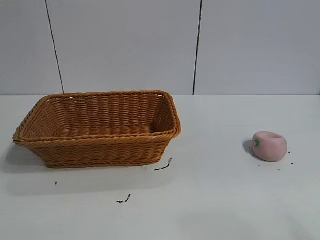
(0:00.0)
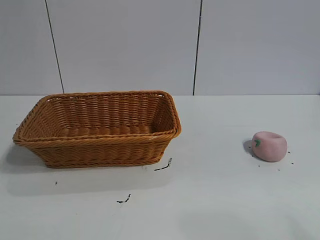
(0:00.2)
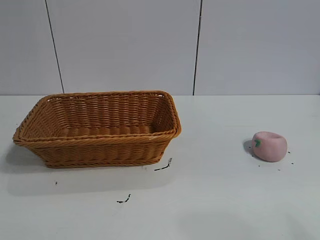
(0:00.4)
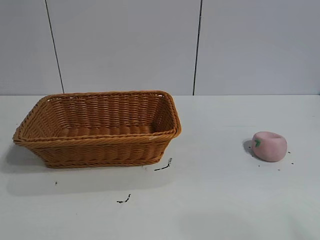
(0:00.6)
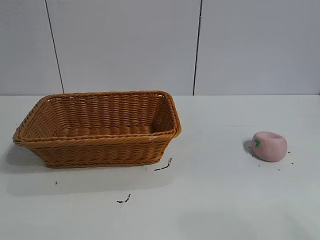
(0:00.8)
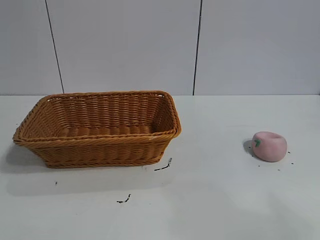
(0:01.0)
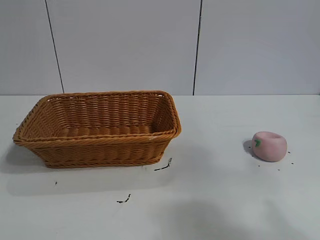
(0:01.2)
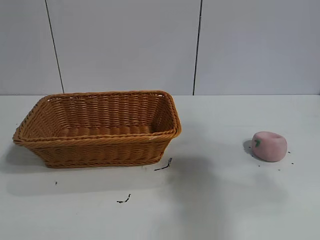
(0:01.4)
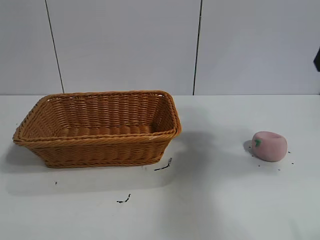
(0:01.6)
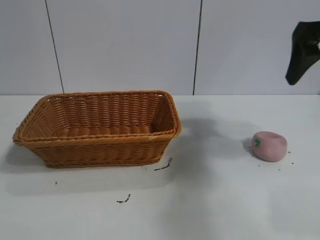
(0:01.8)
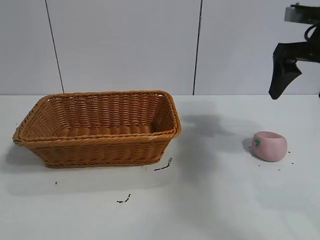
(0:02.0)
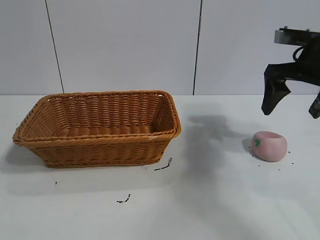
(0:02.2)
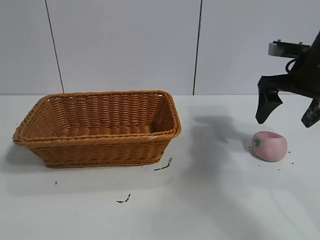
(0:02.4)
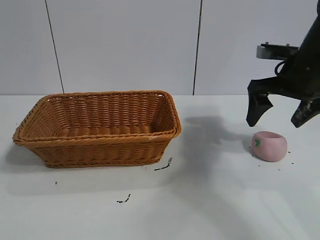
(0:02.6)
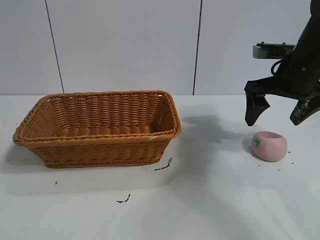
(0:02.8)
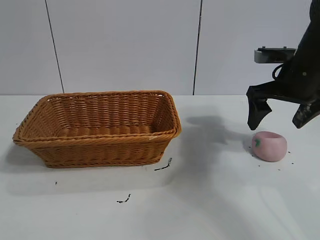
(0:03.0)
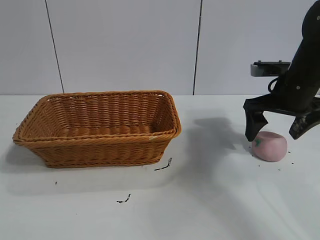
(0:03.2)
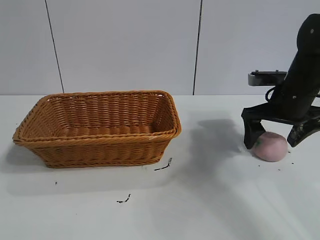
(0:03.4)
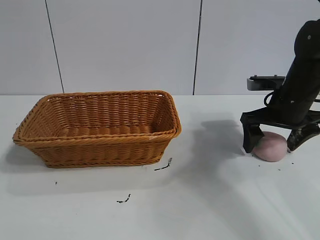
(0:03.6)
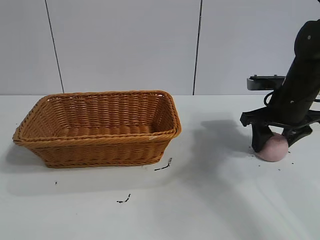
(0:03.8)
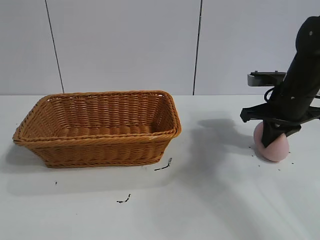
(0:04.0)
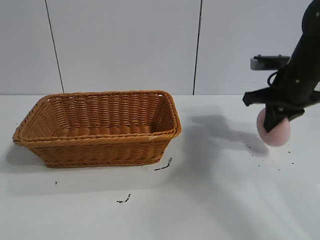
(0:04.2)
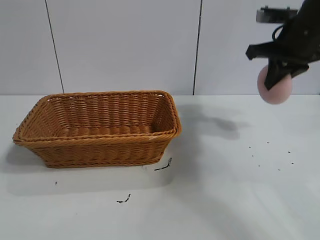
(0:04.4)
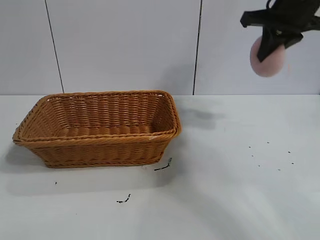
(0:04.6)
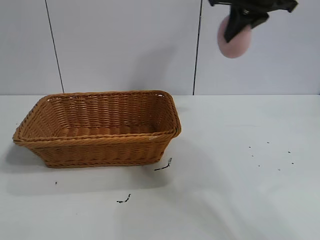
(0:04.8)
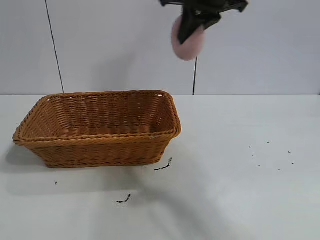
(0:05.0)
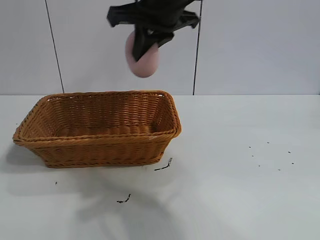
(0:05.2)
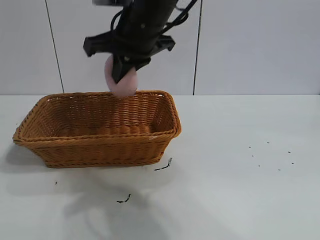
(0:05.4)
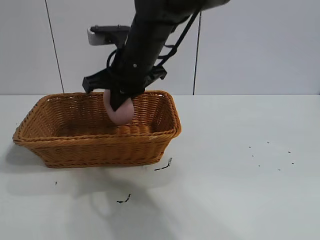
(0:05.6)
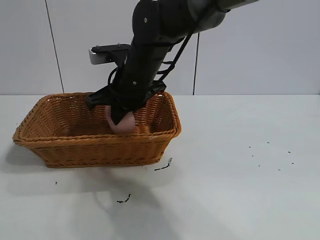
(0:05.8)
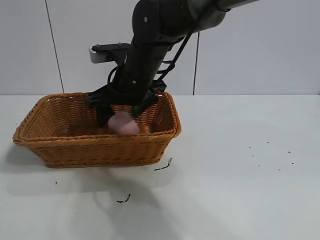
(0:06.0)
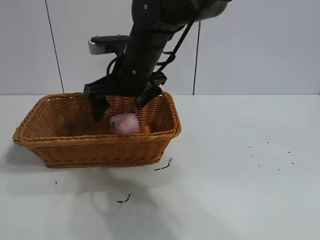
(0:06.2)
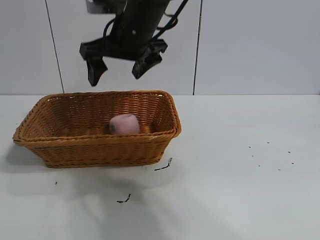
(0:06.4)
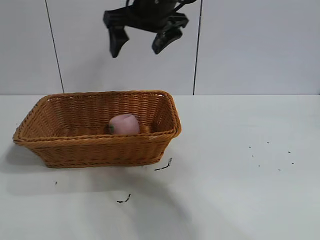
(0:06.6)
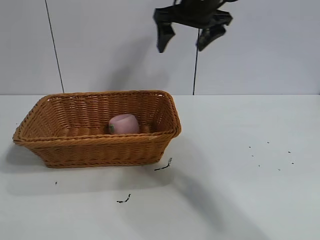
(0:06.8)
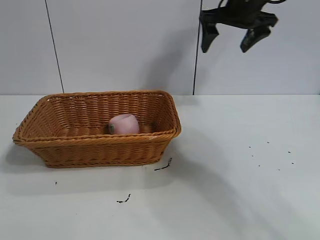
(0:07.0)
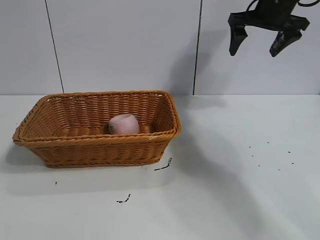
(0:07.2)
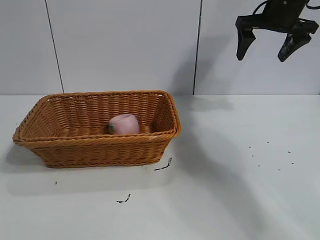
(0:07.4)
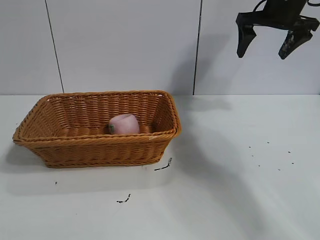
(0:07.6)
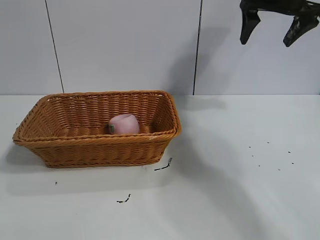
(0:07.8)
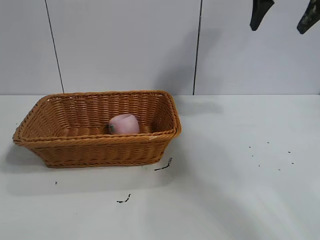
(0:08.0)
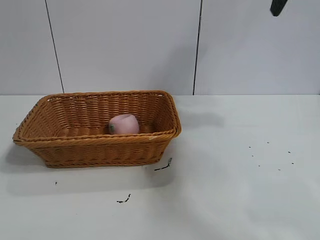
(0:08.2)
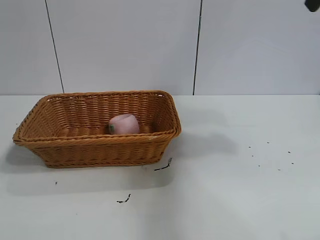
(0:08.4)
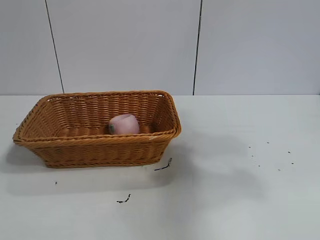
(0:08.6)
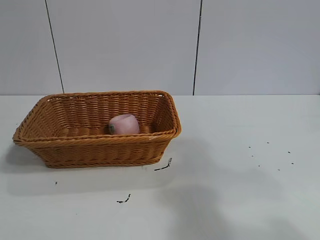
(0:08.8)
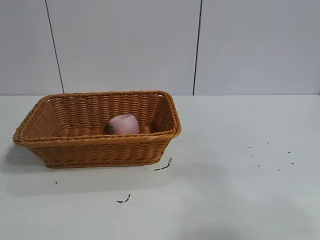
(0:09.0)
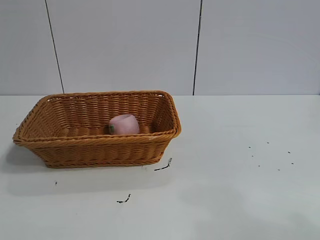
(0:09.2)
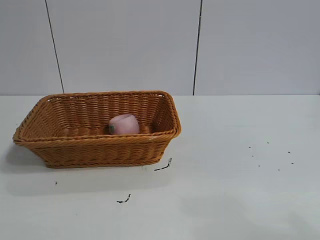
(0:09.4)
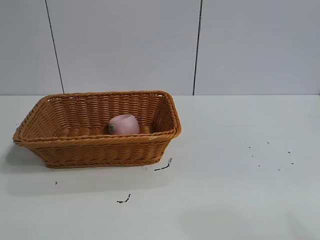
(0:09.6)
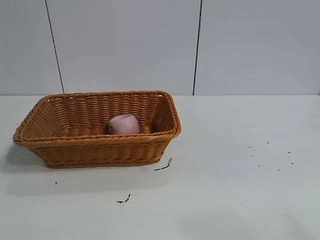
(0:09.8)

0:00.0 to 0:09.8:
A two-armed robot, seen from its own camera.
Task of the whole recording: pick up the peach and put it into the basket.
Step, 0:00.8 to 0:04.0: Grasp the peach with right gripper.
Step, 0:04.2 to 0:06.0: Place the peach in the basket with right gripper.

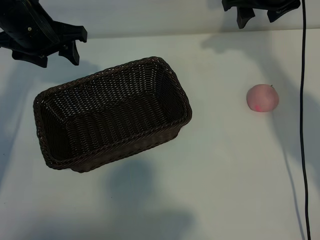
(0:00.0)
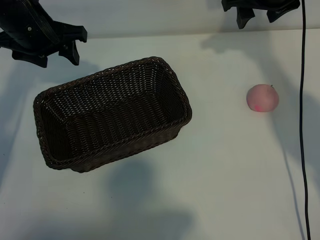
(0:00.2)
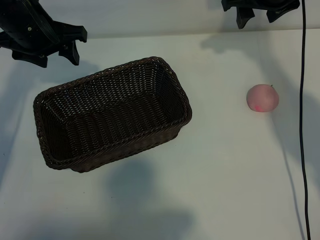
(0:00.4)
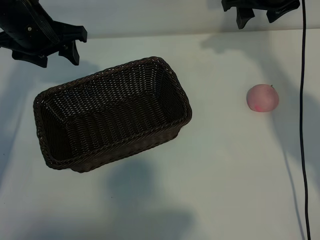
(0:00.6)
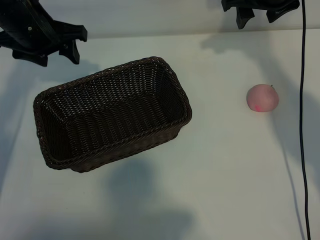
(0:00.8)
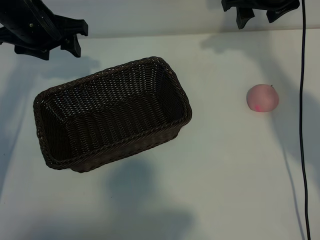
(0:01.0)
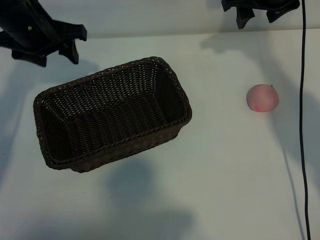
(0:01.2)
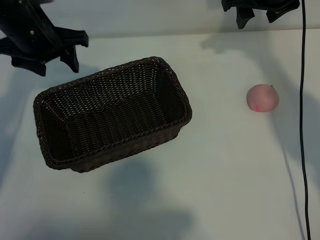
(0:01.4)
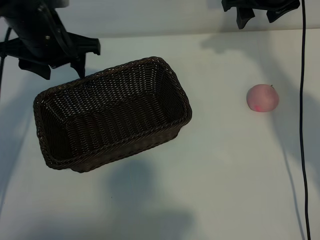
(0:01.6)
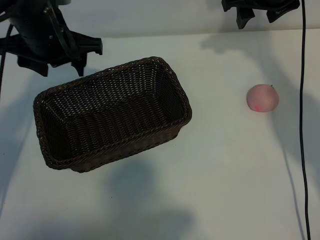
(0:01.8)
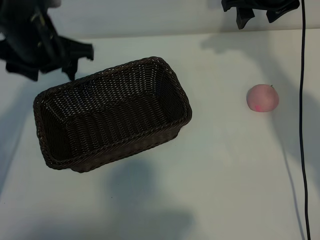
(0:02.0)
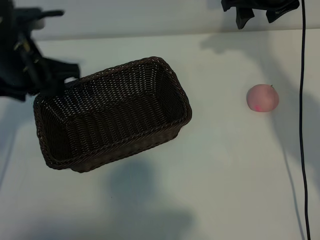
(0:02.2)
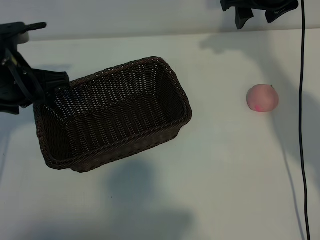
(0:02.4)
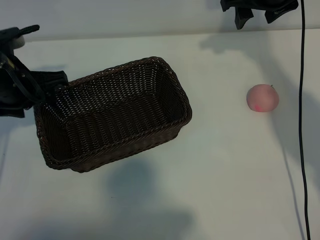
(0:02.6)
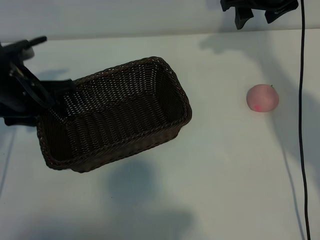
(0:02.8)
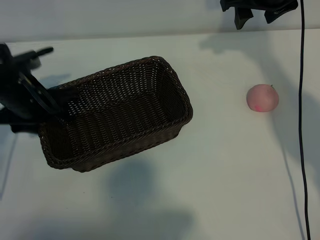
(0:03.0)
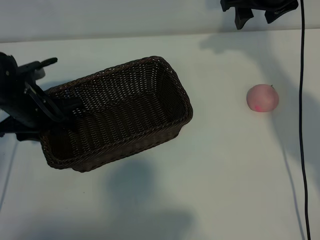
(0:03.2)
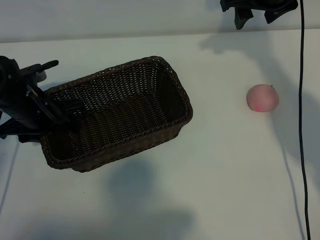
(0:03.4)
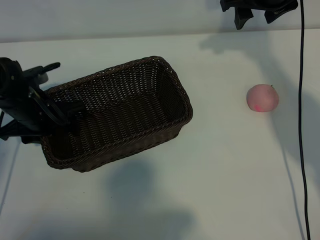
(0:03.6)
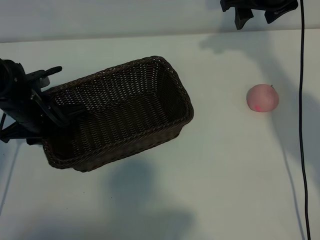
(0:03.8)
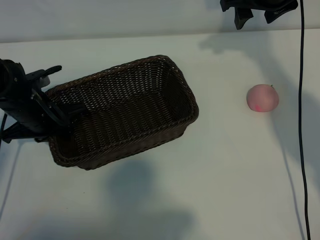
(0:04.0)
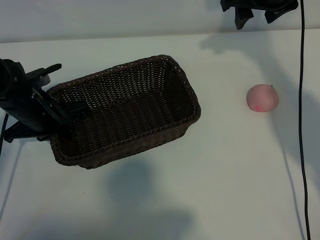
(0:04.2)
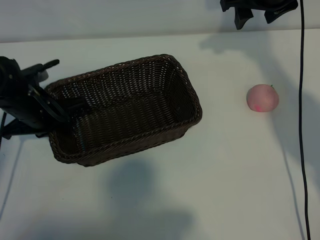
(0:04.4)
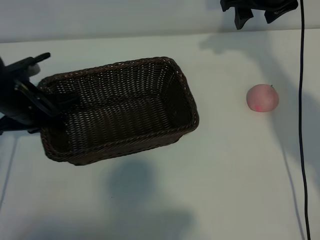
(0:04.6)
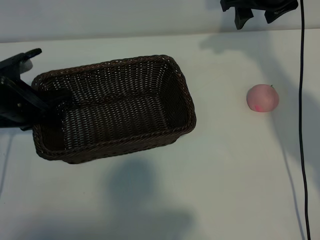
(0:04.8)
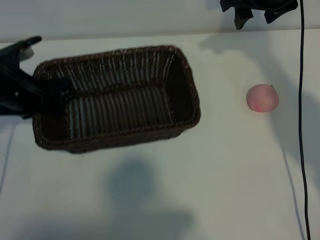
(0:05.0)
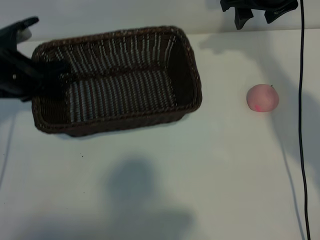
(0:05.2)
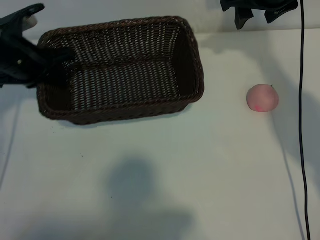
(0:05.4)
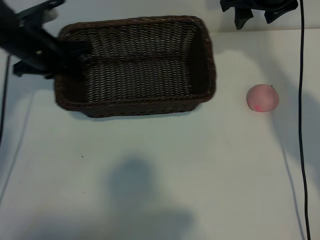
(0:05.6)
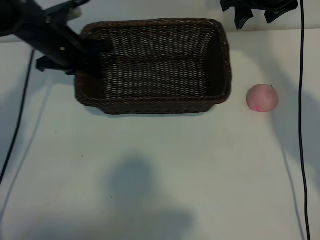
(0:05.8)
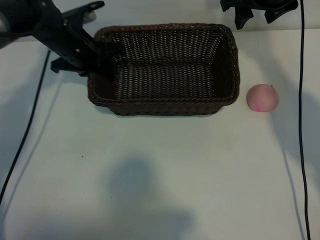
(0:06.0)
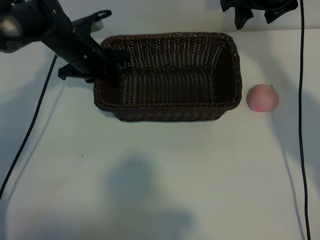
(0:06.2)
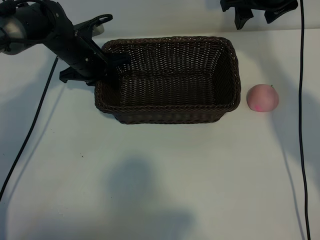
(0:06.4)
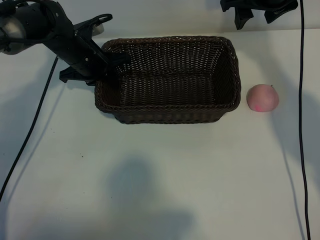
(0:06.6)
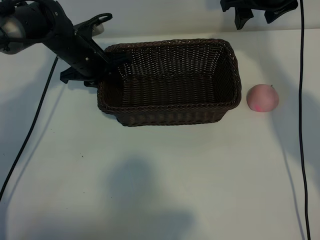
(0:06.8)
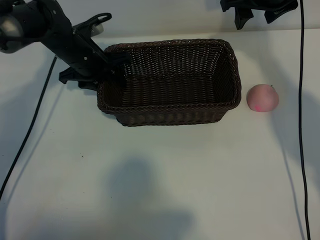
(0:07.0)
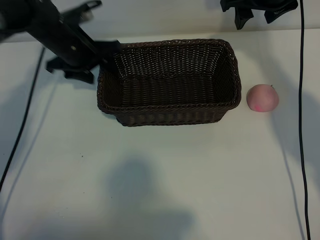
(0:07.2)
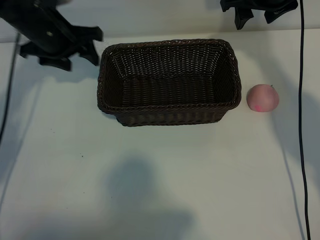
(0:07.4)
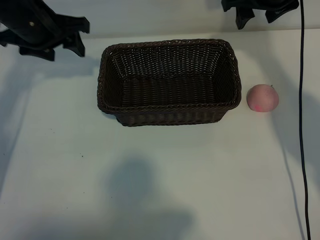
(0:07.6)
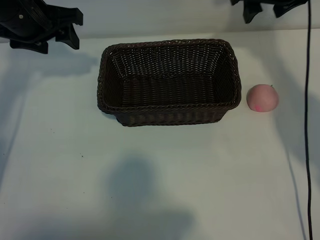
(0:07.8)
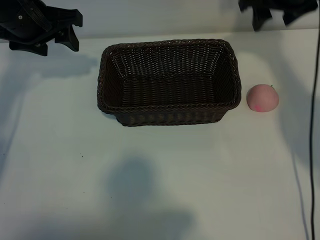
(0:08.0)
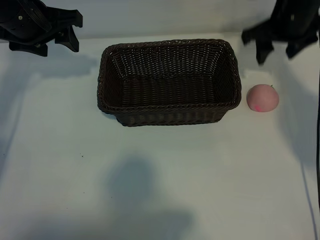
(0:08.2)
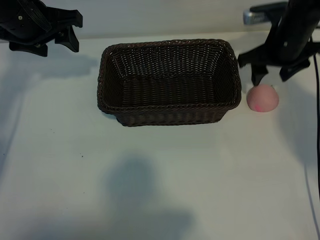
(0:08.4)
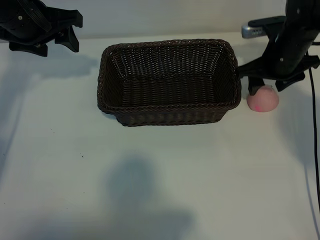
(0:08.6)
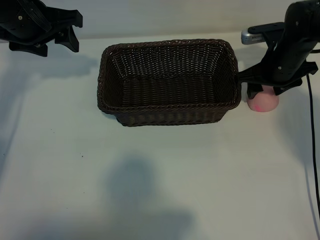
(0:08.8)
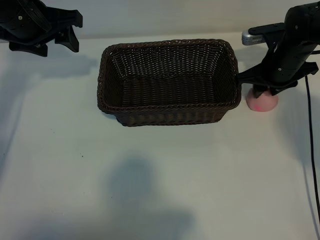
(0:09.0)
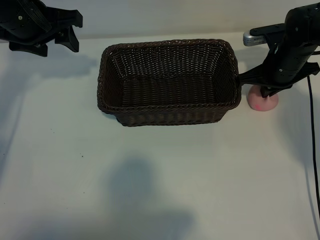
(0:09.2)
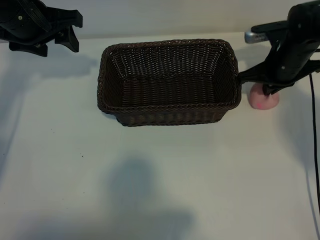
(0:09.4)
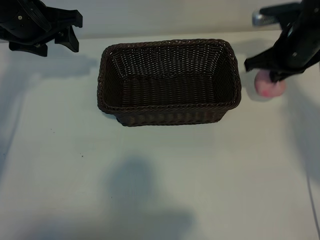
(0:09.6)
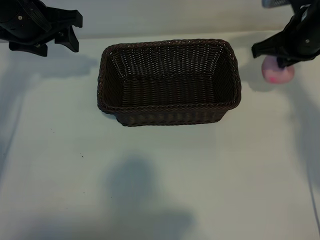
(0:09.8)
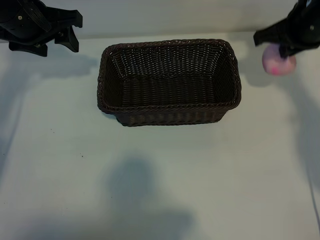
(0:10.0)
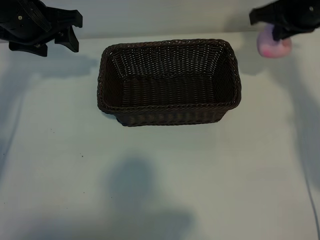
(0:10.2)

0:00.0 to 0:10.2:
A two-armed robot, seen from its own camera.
Task of the whole recording: pick up the peach and put it into the basket.
Step, 0:00.8 to 0:04.0: Grasp the basket with left gripper.
Step, 0:04.4 to 0:07.0: Place the basket in the center of view with left gripper.
Step, 0:07.2 to 0:09.2: Grasp the peach with right gripper.

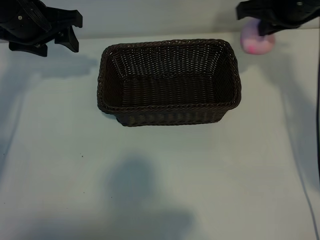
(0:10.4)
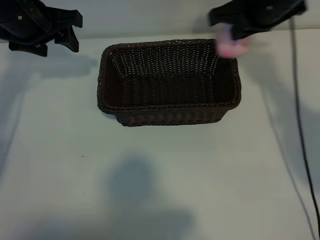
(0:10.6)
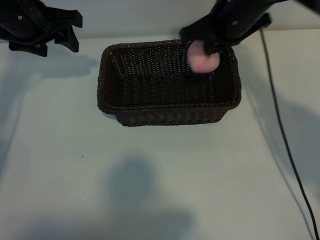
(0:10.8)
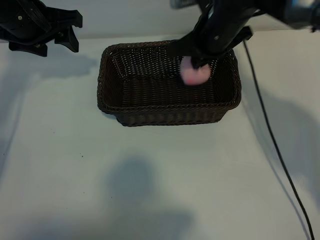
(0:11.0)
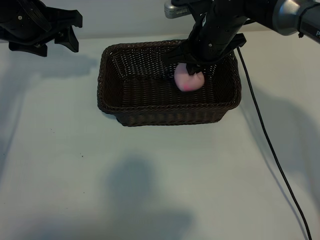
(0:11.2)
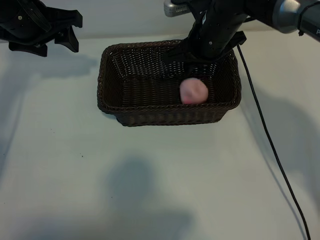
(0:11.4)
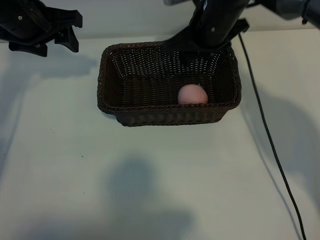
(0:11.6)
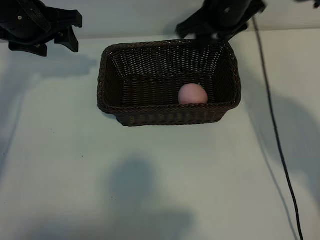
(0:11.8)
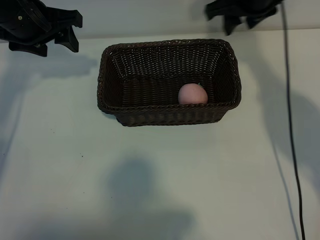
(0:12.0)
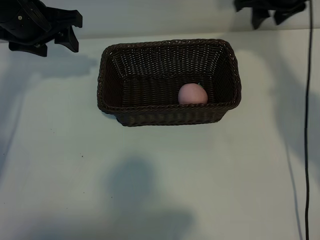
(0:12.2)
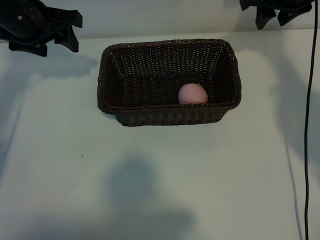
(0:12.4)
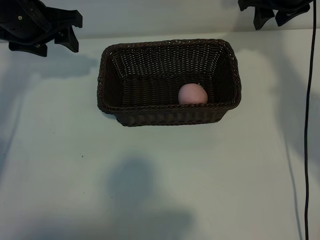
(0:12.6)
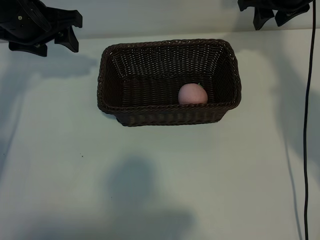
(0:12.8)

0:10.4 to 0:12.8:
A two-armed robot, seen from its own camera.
Task of the whole recording: pick up the peach and put it into the basket.
Step, 0:10.4 to 0:11.6: Place the peach in the basket with right gripper.
